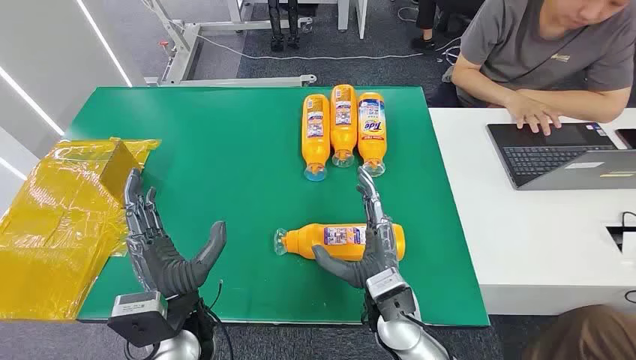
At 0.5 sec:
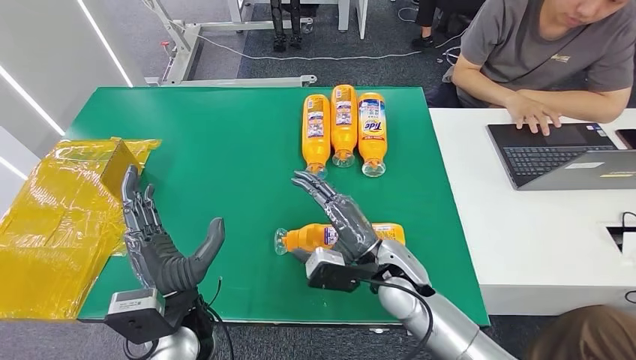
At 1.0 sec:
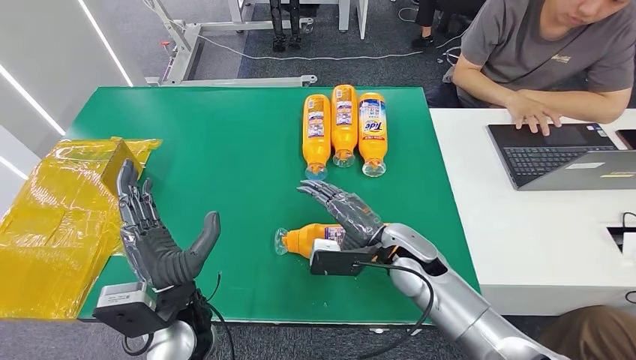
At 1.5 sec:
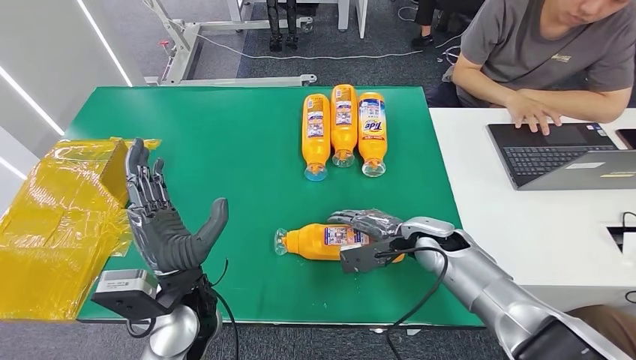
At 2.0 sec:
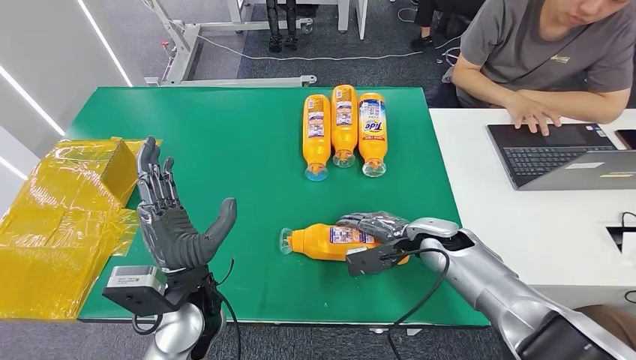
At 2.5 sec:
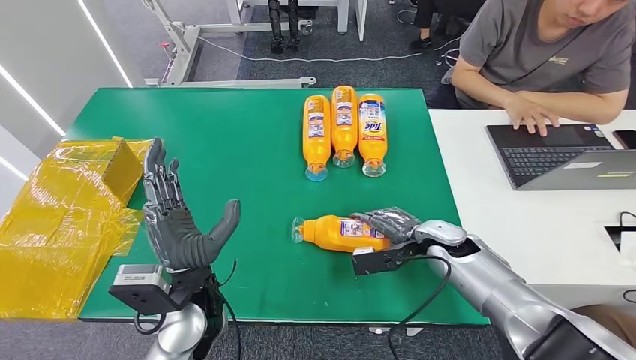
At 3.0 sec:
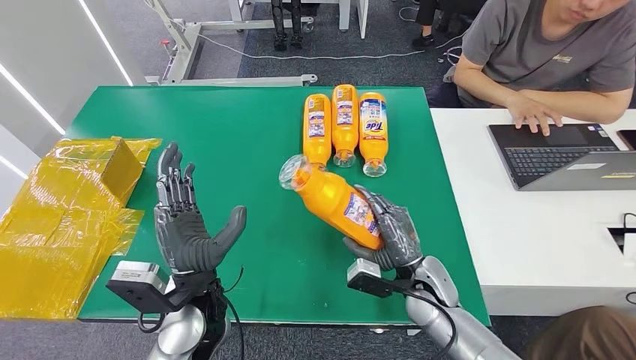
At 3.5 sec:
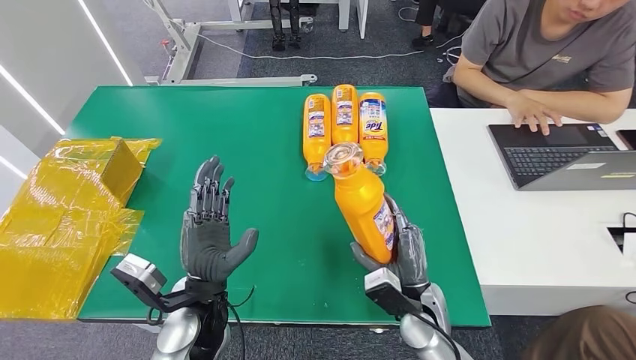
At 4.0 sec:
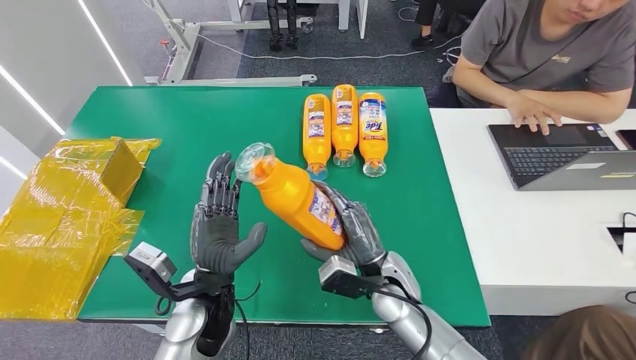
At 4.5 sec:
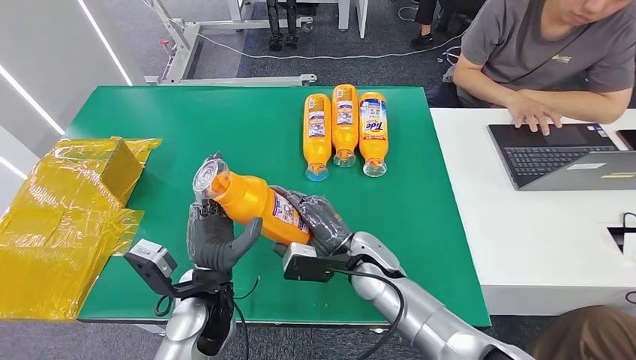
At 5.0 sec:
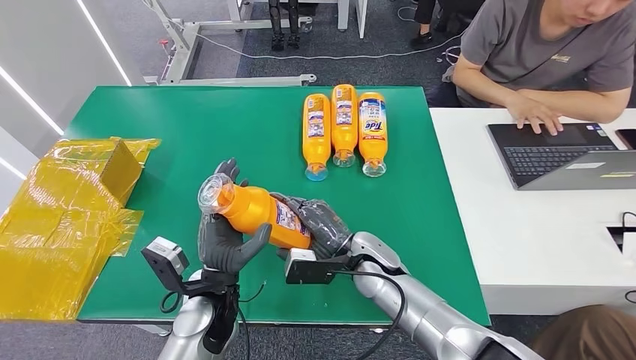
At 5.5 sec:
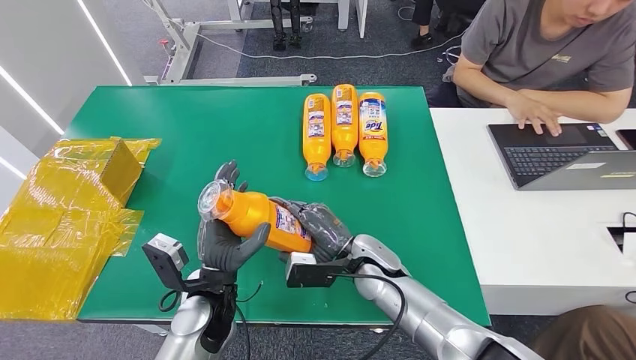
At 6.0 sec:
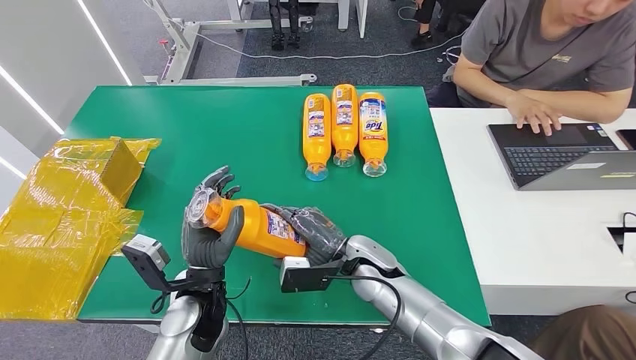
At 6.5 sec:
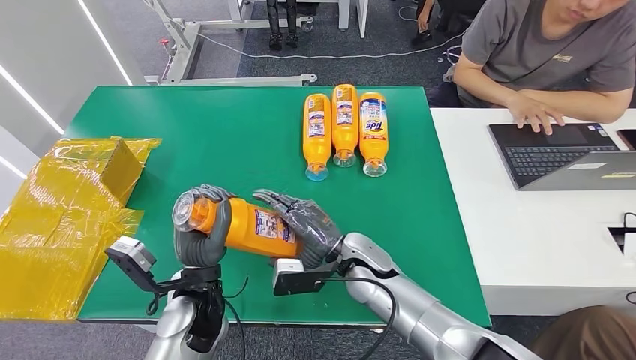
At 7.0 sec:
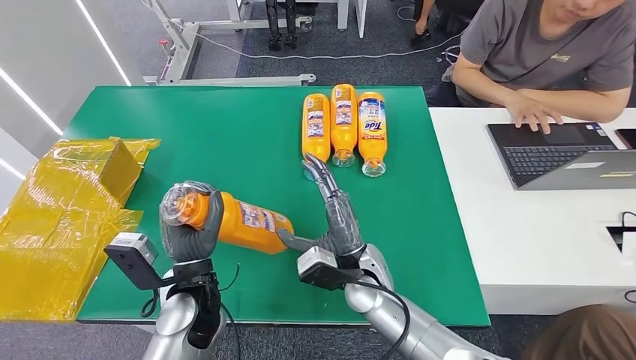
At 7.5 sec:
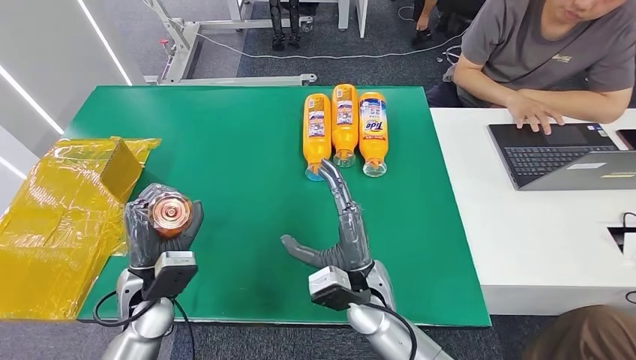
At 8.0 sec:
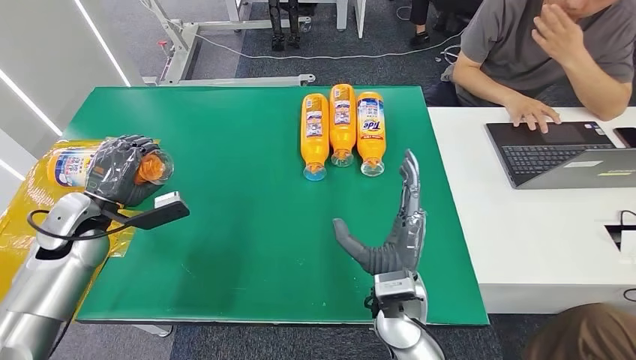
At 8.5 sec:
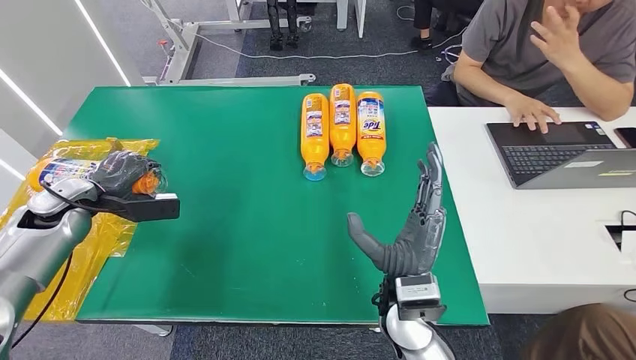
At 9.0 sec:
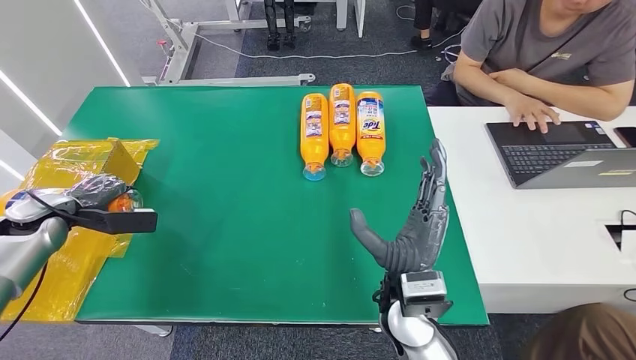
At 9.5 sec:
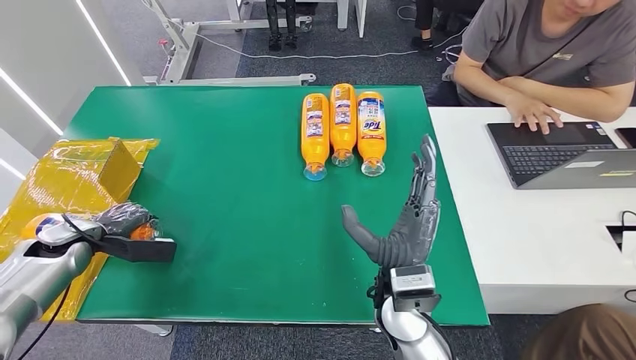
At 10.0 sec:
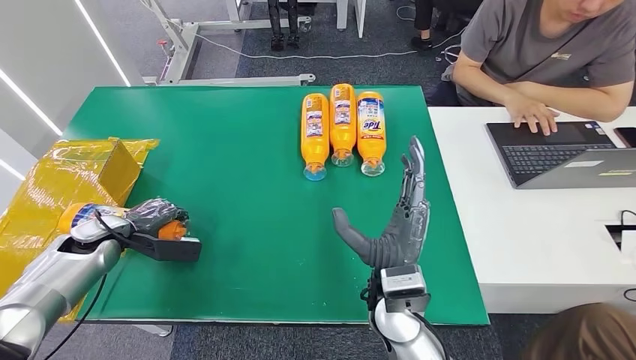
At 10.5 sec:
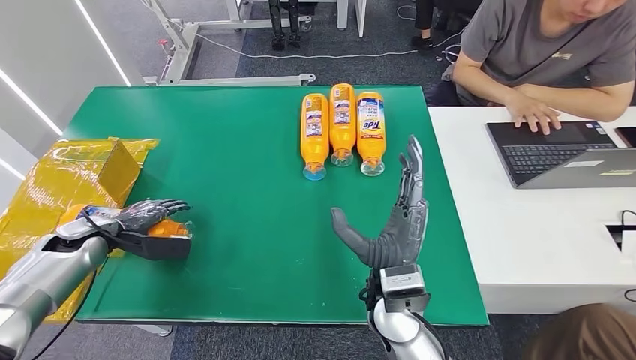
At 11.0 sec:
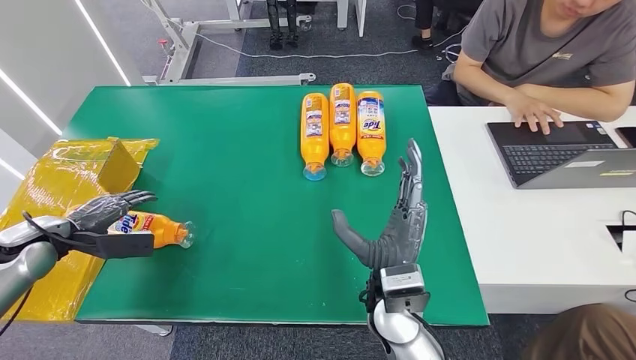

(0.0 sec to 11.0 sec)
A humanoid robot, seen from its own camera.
Step, 0.0 sec - 4.0 sec: Pick up the bottle from the table.
Step, 4.5 sec - 11.0 sec: Turn the bottle to the front side.
2.0 sec - 3.5 sec: The right hand moves backward and to the left, some 15 cm.
3.5 sec - 5.5 sec: The right hand heads to the left and forward, covering about 10 cm.
5.5 sec - 7.5 sec: The left hand heads to the left, covering about 10 cm. The right hand is displaced backward by some 5 cm.
